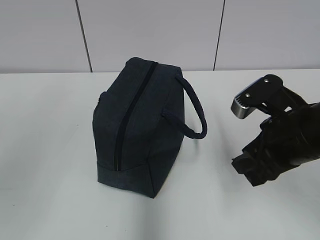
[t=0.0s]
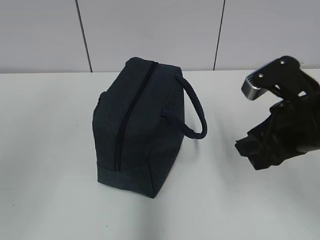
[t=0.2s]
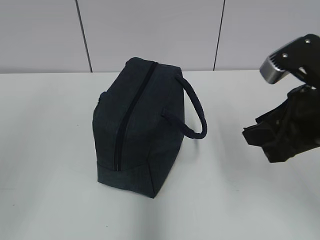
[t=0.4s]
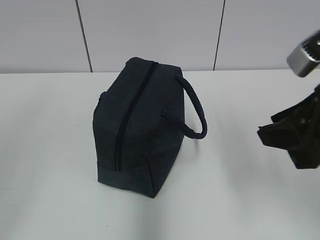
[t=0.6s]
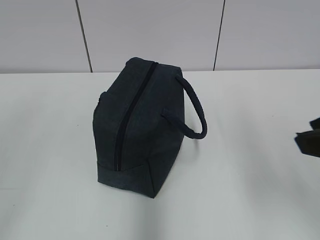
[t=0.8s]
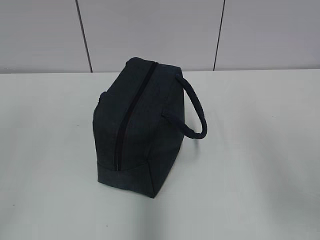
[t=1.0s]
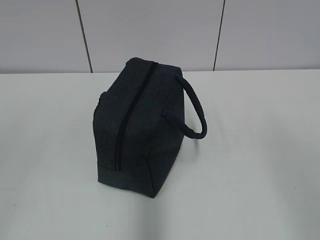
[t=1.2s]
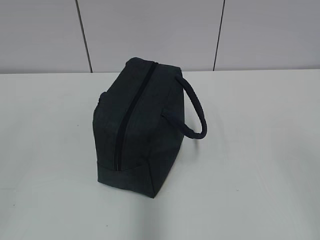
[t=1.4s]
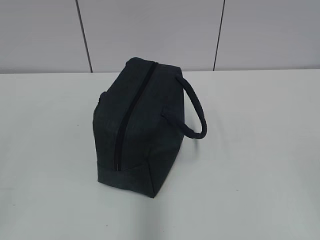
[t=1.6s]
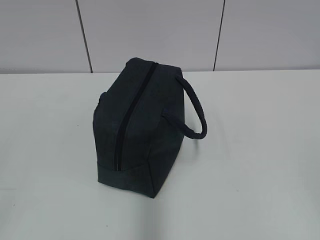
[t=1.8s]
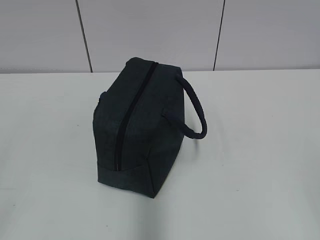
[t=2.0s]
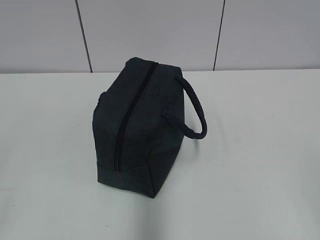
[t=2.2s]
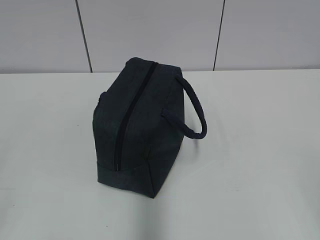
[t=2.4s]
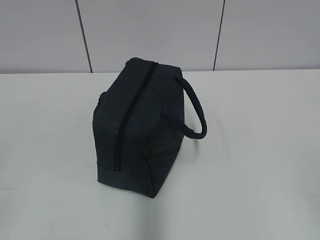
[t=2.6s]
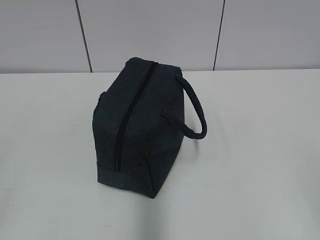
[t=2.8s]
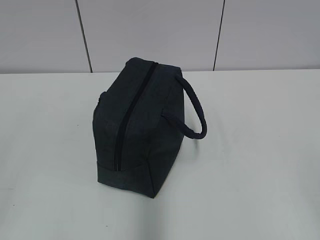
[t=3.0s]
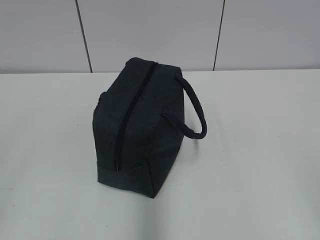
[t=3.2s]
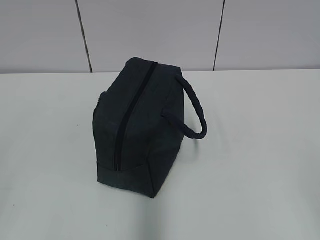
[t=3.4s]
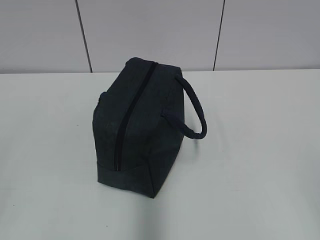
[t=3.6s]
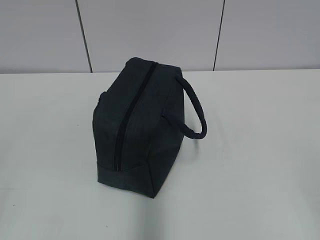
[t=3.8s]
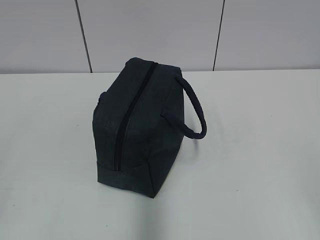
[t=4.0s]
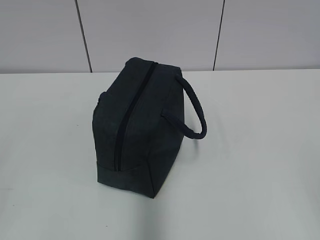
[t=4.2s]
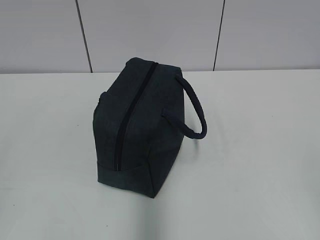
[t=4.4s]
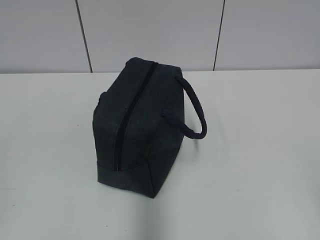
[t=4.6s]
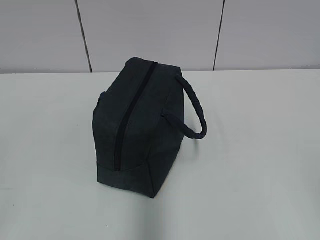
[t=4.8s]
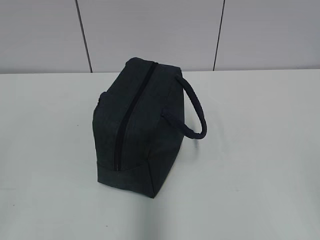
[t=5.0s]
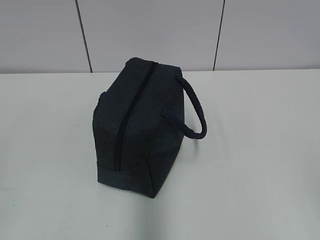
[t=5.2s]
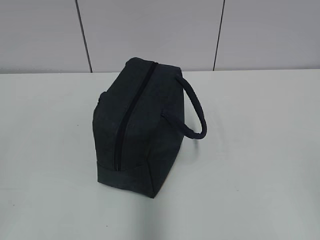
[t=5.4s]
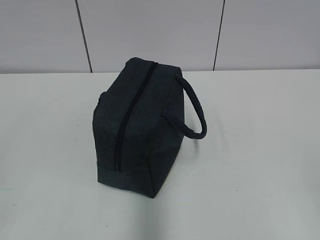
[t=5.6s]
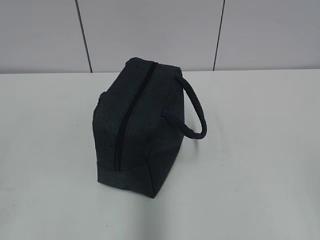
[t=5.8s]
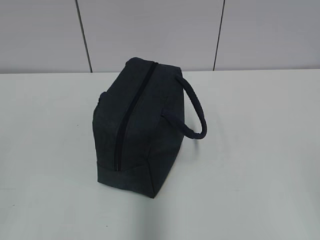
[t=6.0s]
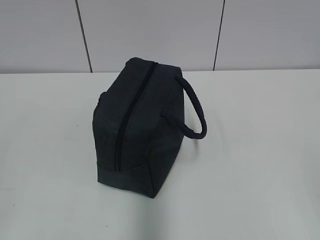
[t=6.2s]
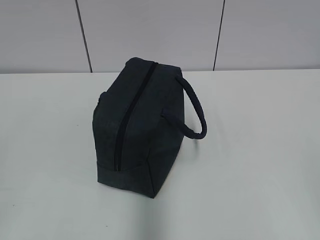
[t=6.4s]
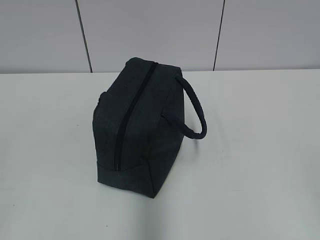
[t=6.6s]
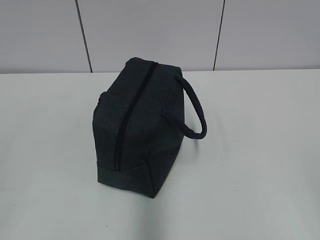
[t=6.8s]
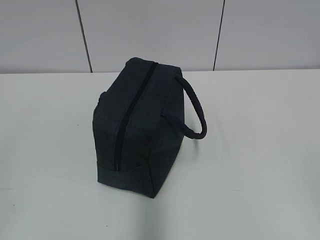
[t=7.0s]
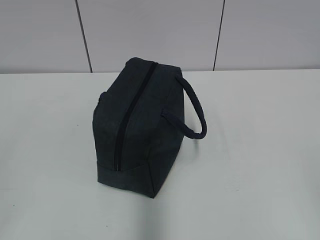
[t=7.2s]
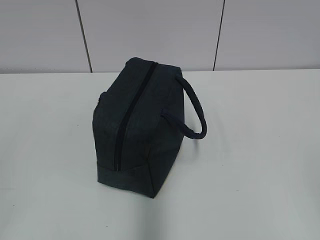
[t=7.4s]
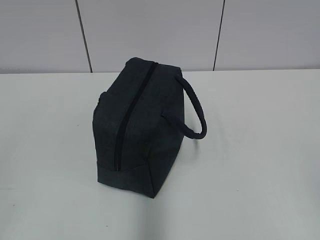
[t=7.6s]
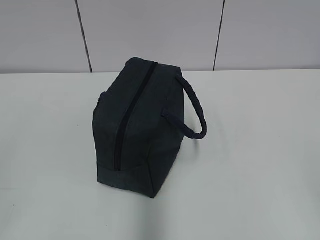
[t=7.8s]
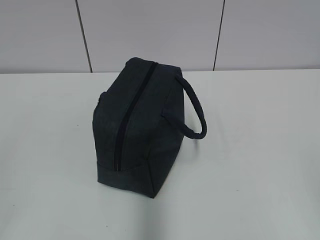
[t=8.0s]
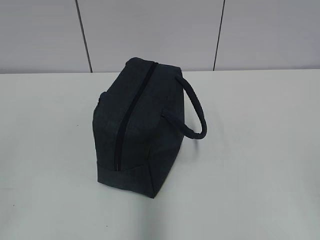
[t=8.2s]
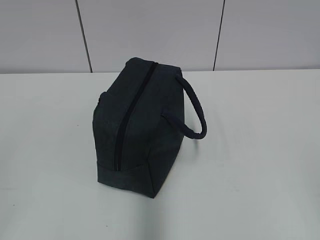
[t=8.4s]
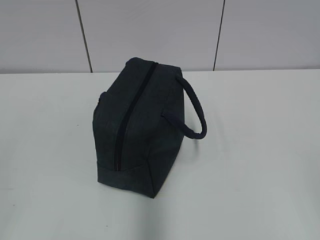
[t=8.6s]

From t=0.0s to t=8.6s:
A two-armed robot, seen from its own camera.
From t=0.0s to t=1.4s: The right gripper is displaced backward, upward and to the right by about 30 cm.
From t=7.2s to t=8.6s: The two grippers keep their place.
